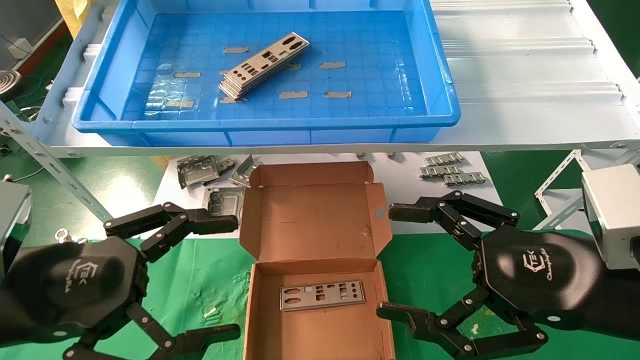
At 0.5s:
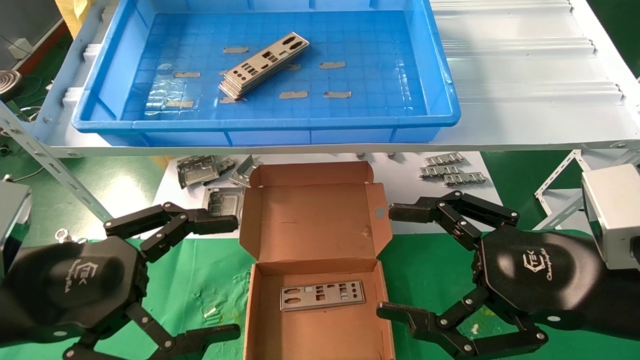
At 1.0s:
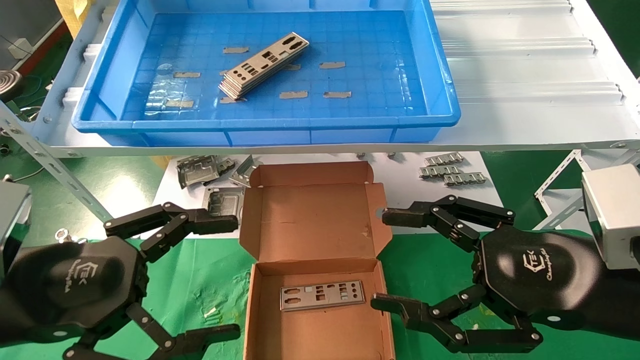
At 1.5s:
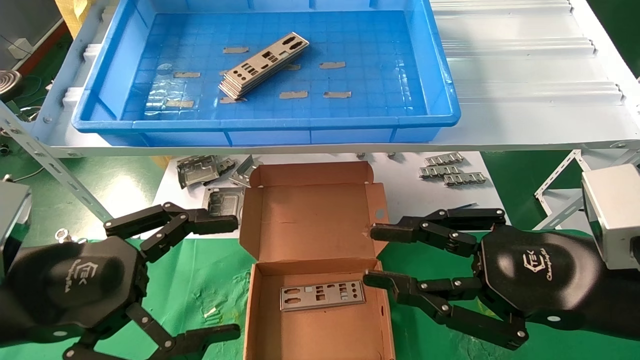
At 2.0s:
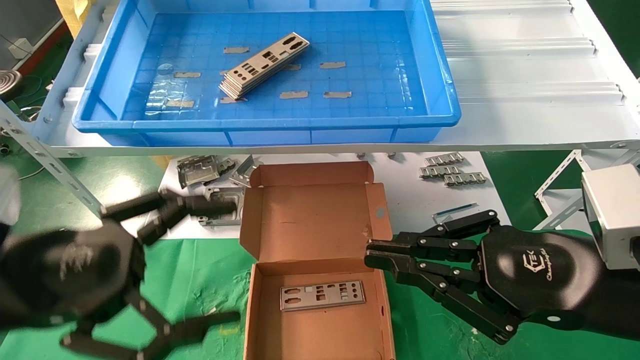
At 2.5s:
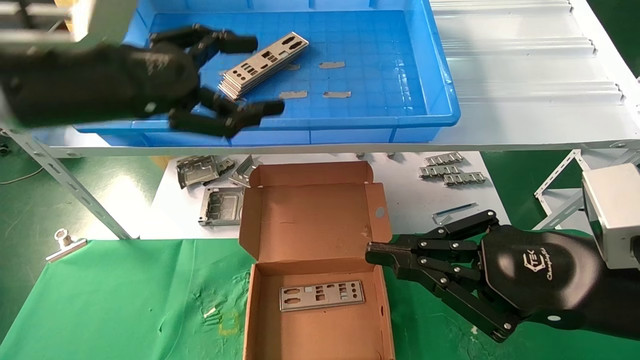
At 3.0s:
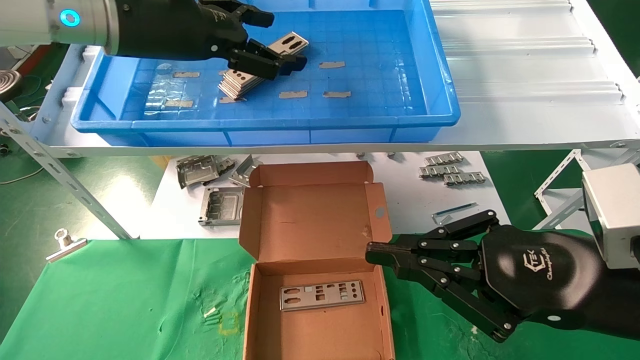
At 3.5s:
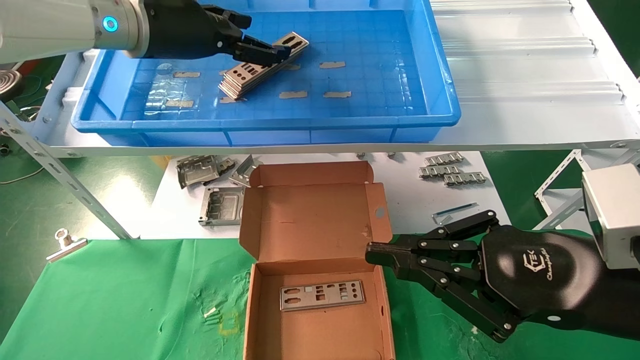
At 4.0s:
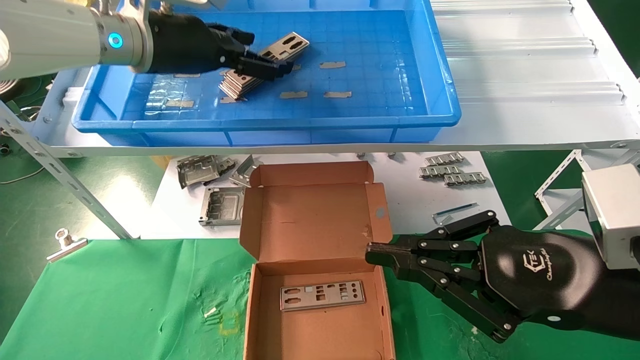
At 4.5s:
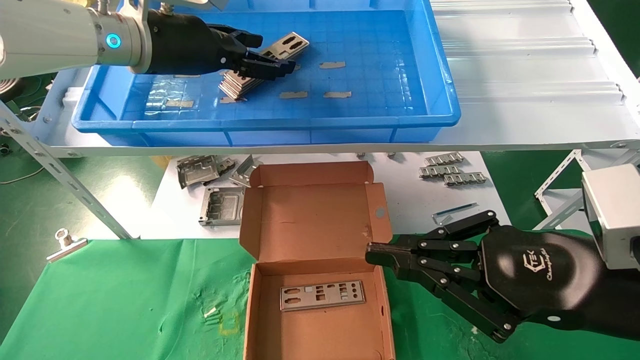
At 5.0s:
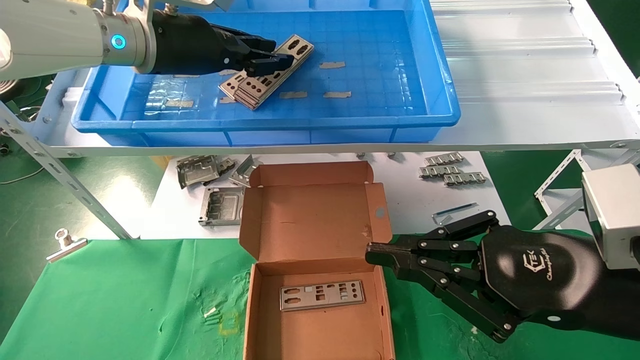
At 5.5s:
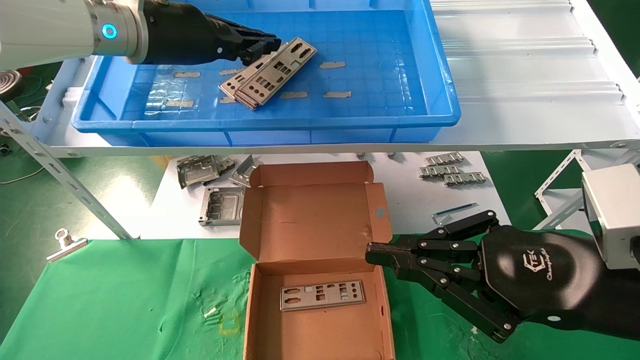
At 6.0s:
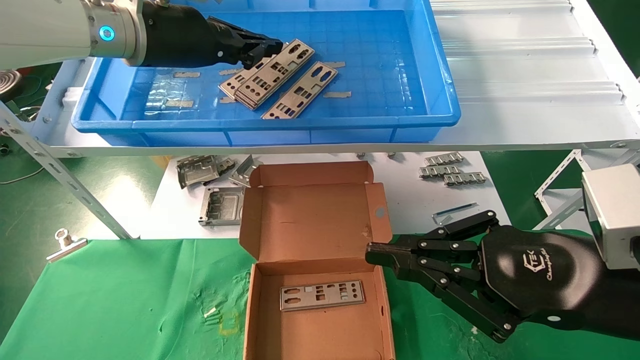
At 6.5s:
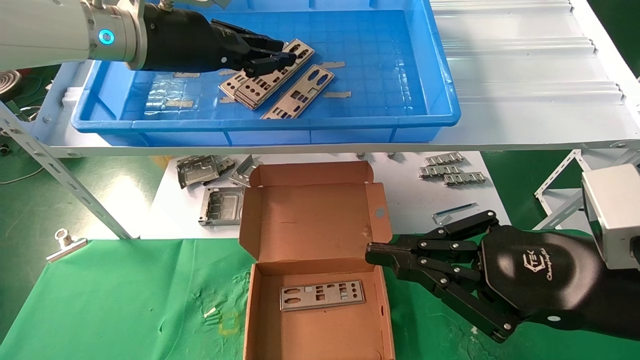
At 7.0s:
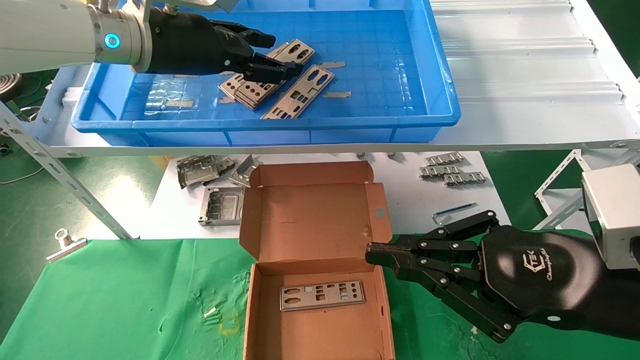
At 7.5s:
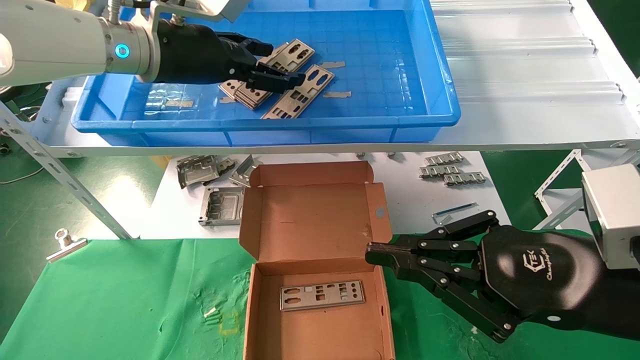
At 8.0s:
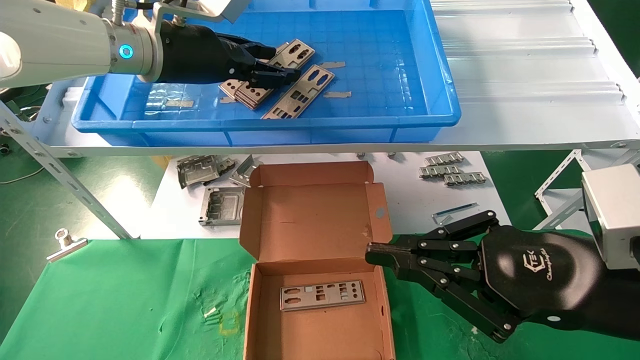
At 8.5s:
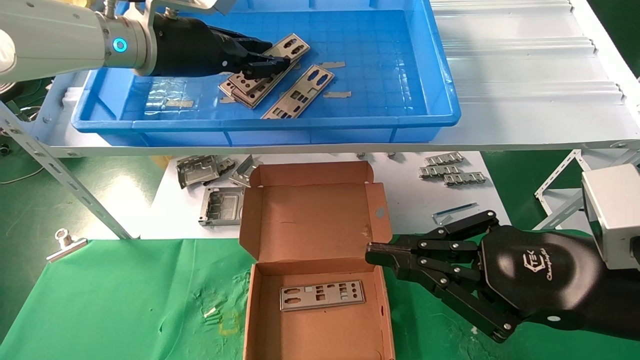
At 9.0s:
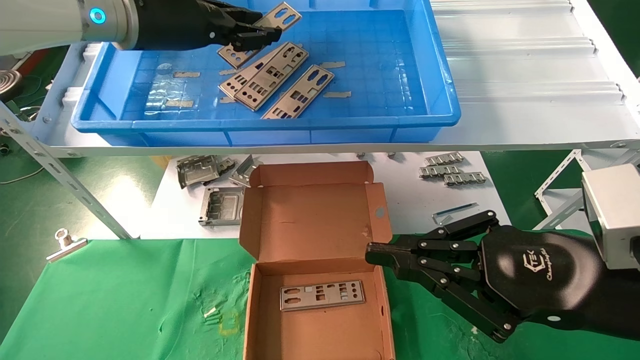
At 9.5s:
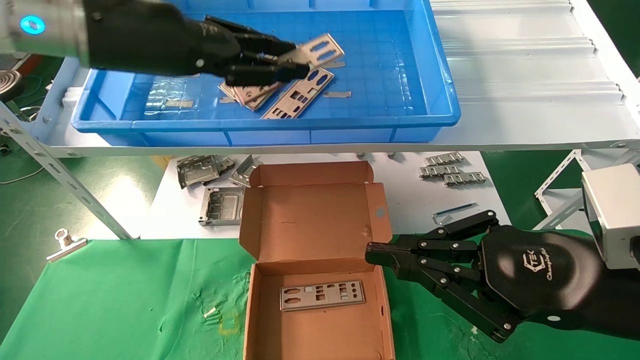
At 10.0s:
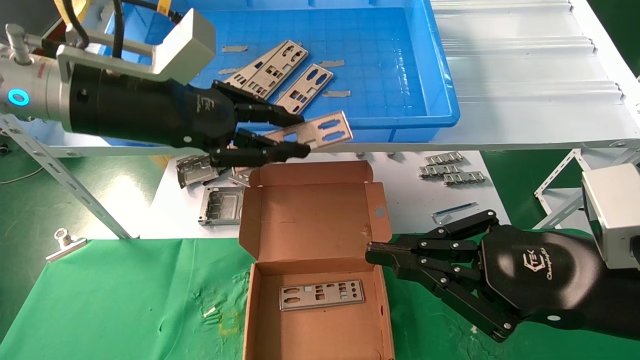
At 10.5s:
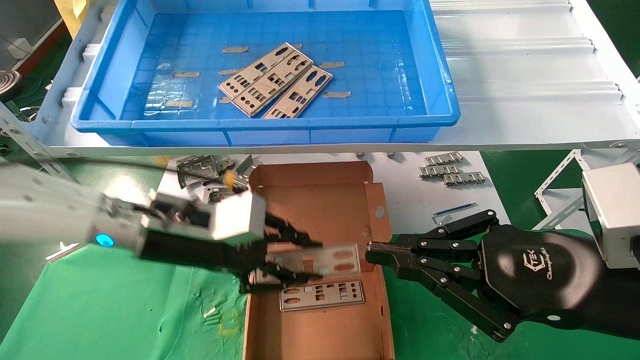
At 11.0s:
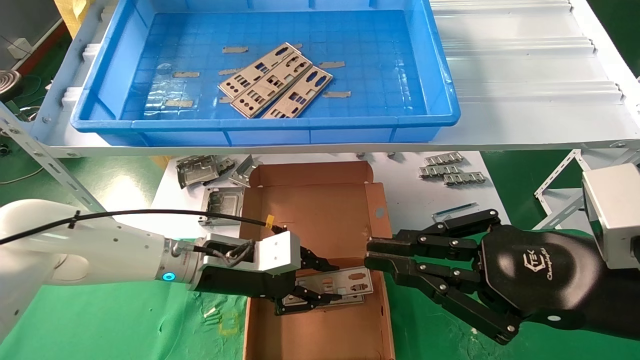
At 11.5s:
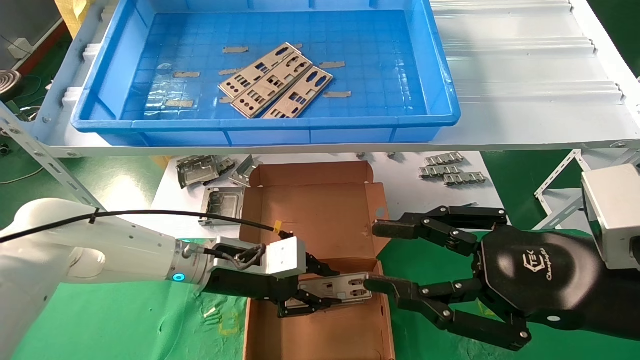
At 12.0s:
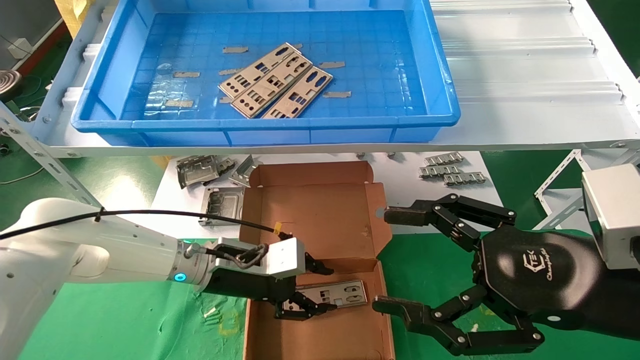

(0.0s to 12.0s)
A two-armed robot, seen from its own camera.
Task of the whole recording: pick up the parts on the tray and put them in the cardboard box.
Step, 2.5s - 8.5s: Pick up the IO bracket from the container box.
Step, 9.0s - 12.0s: Place the IO bracket into the ingredient slot.
0.0s - 2.0s: The right gripper closes.
2.0s - 4.0s: The left gripper moves forward and upward, approximately 25 cm.
4.0s - 6.0s: The left gripper closes.
6.0s - 8.0s: The left gripper opens.
8.0s - 10.0s: The left gripper is displaced backward and downward by roughly 10 cm, and closes its fingers.
10.0s - 12.0s: The right gripper opens its fingers; the left gripper heads downward, covering roughly 25 cm.

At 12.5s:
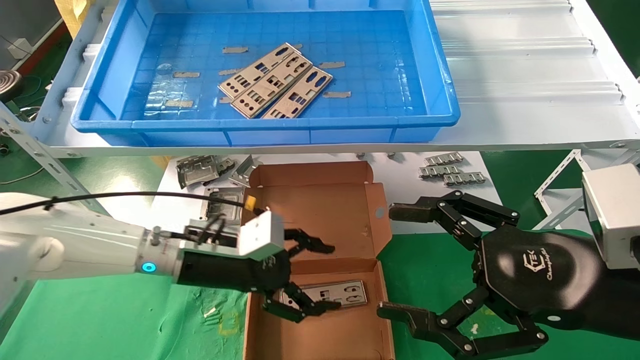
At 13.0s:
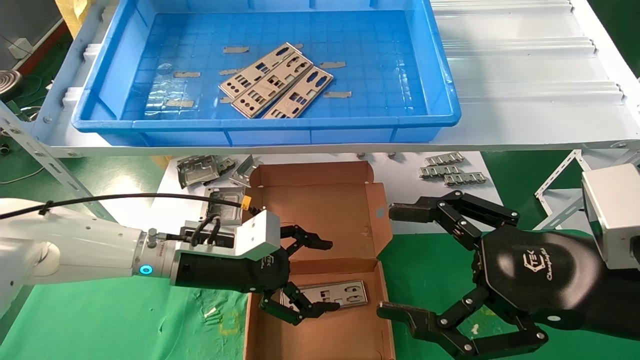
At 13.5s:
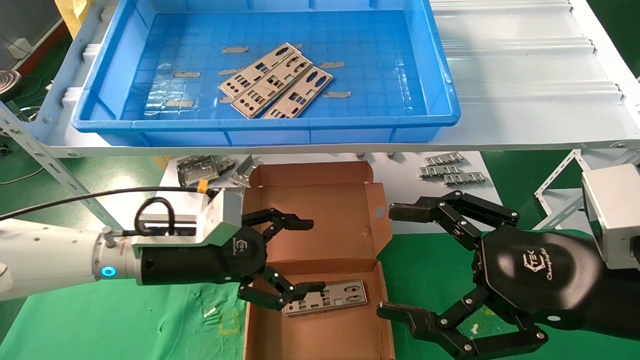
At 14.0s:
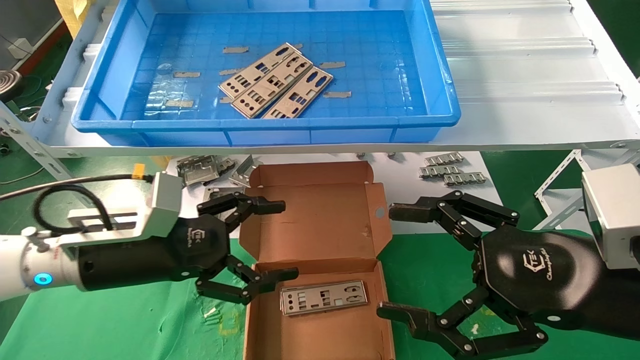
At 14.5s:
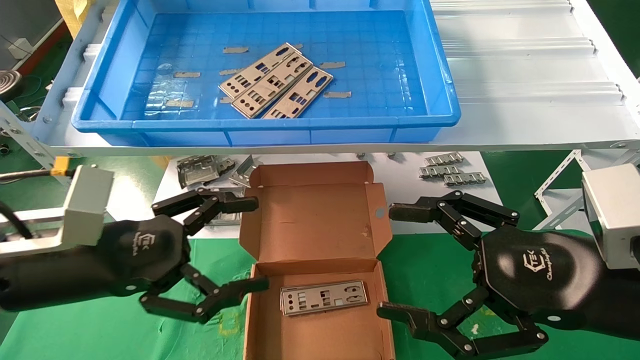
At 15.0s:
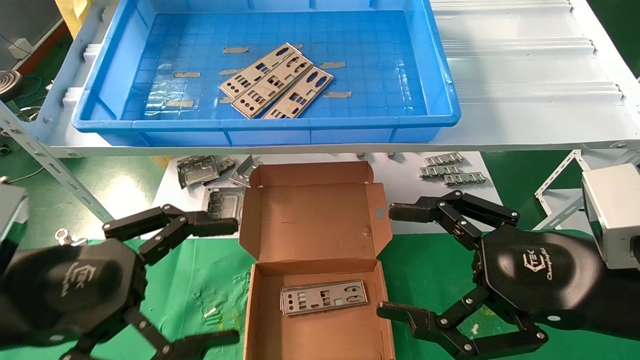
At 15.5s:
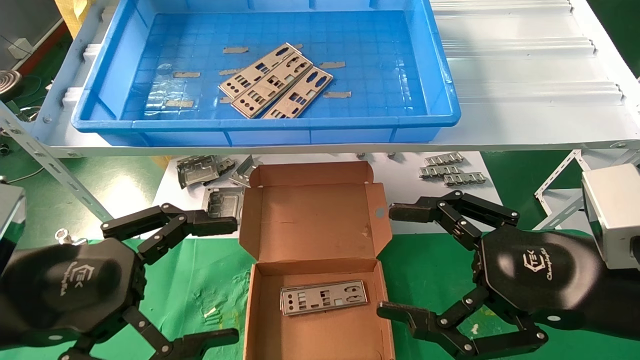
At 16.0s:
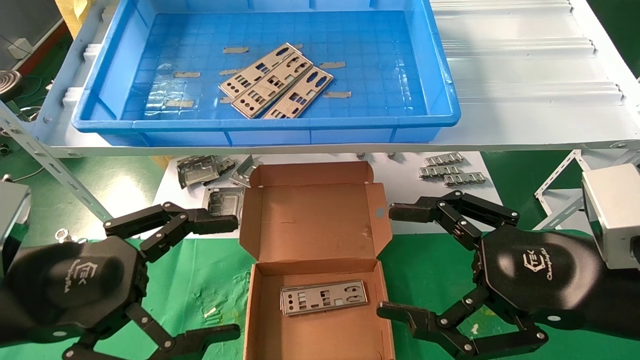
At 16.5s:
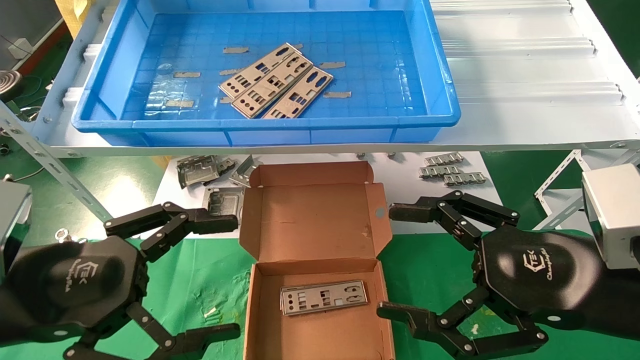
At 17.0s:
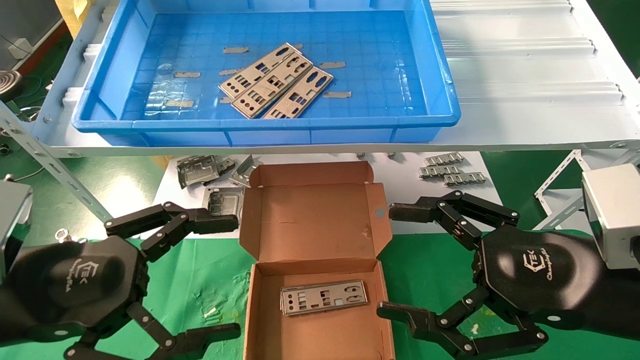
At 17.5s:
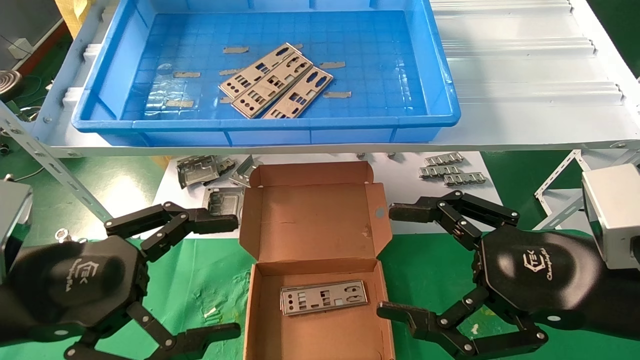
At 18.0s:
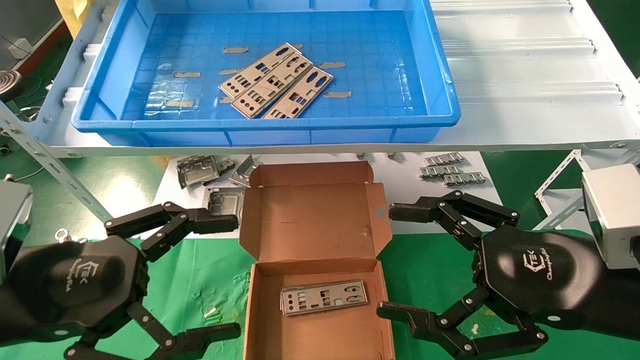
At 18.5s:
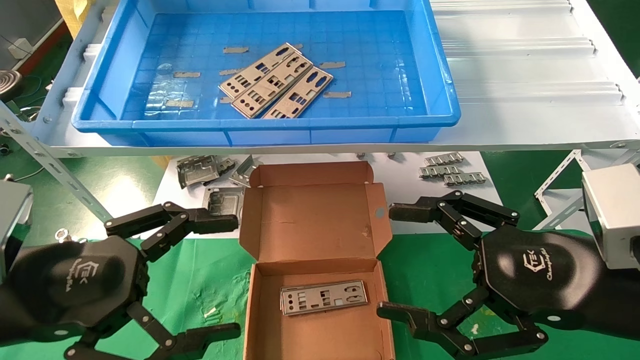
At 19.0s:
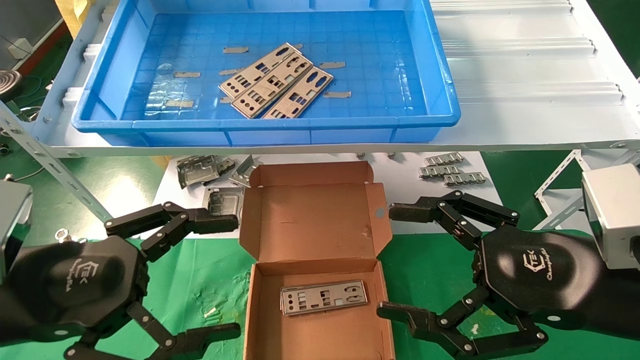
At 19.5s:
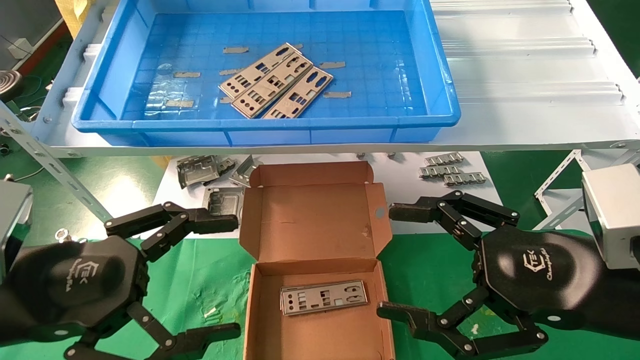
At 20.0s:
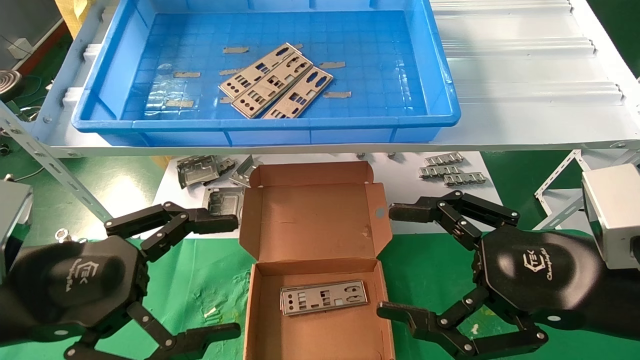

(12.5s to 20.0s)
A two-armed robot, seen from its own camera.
Task of the whole recording: pick up the parts on the tray and put them in the cardboard box.
12.5s - 14.5s: The left gripper is displaced backward, to the left and upward by some 15 cm.
14.5s - 16.5s: The left gripper is displaced backward by approximately 5 cm.
16.5s - 20.0s: Both grippers stay about where they are.
